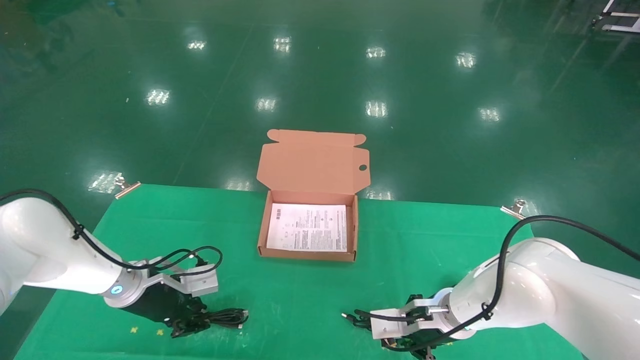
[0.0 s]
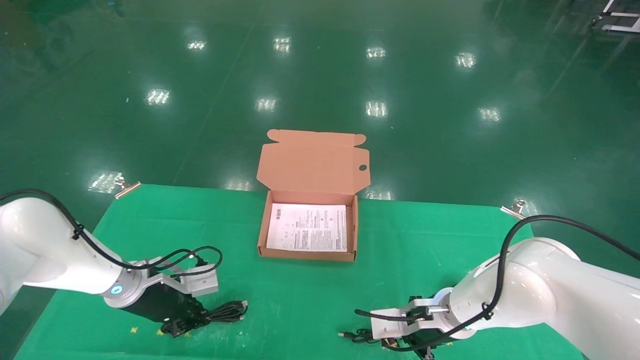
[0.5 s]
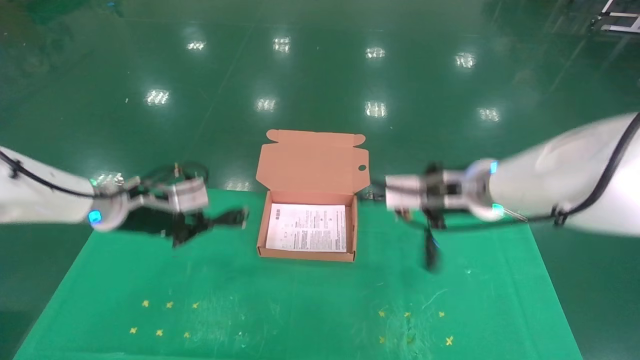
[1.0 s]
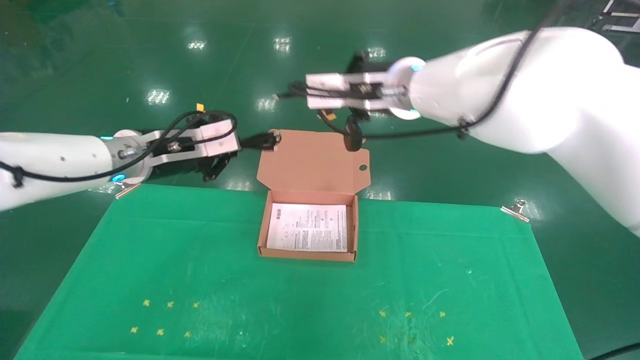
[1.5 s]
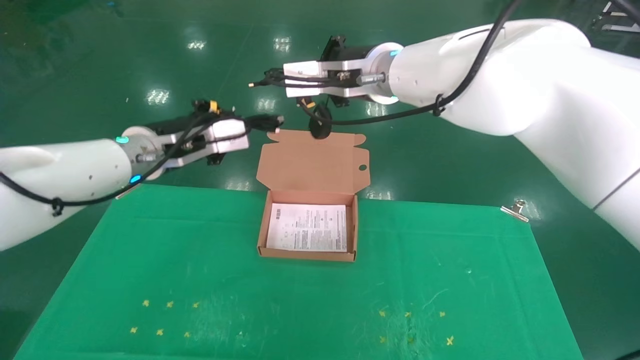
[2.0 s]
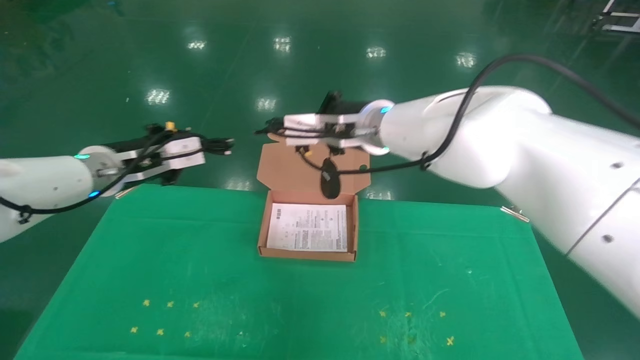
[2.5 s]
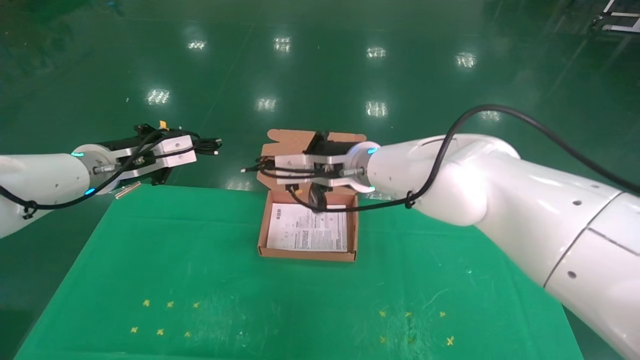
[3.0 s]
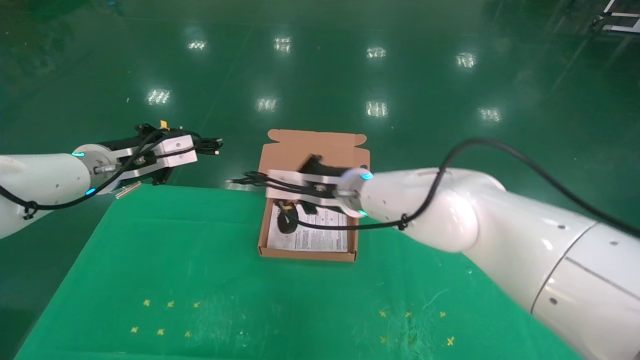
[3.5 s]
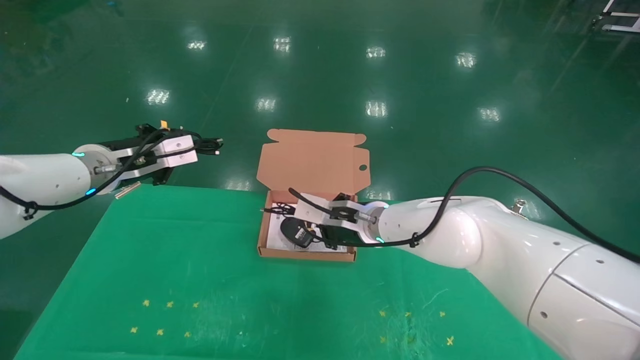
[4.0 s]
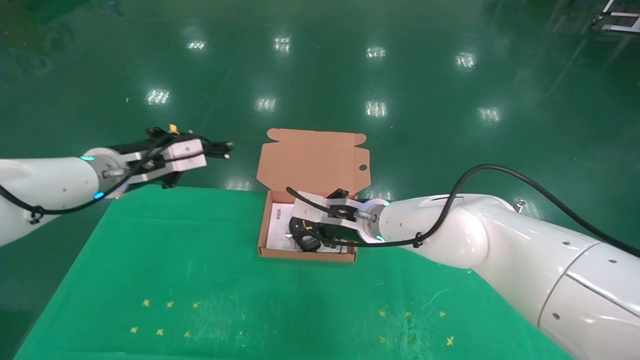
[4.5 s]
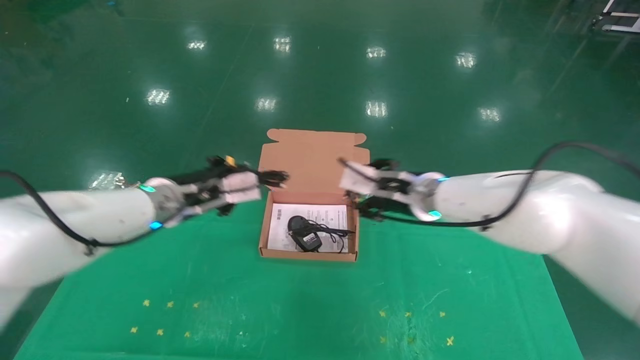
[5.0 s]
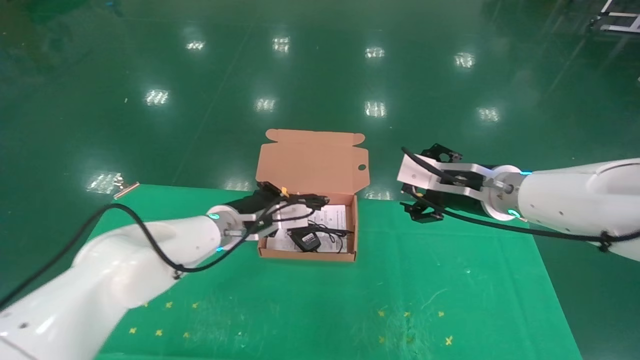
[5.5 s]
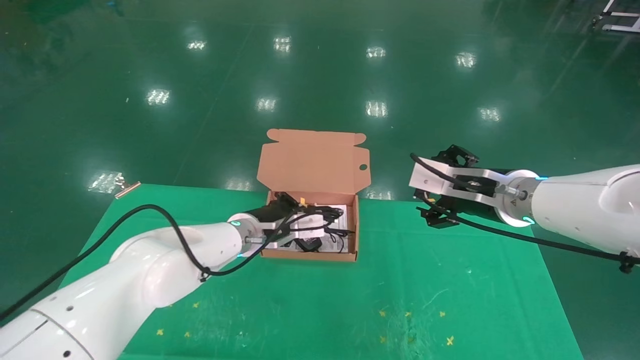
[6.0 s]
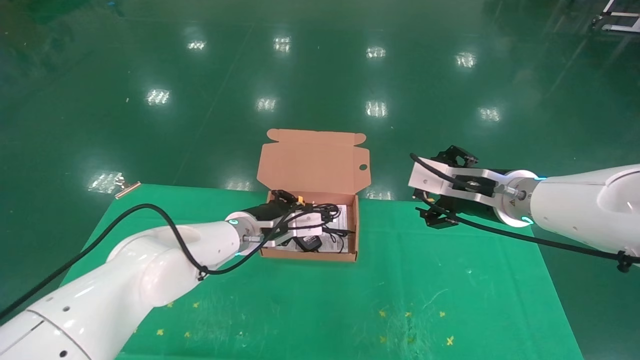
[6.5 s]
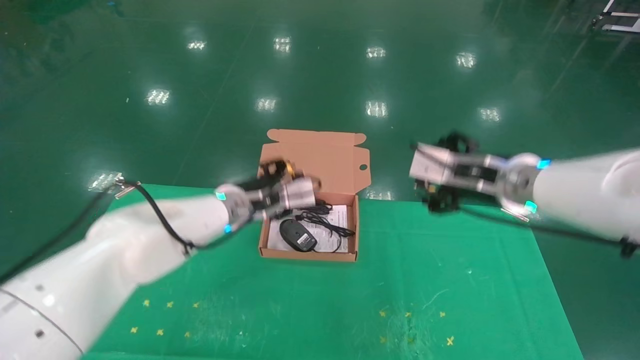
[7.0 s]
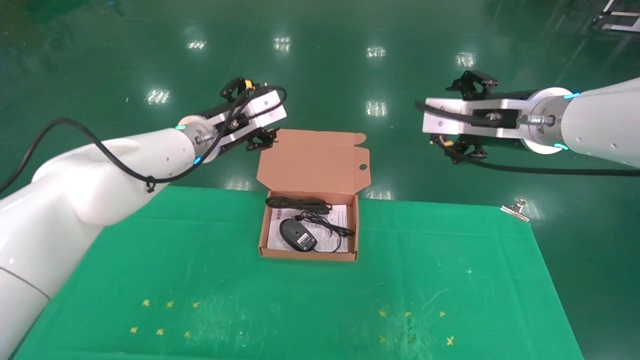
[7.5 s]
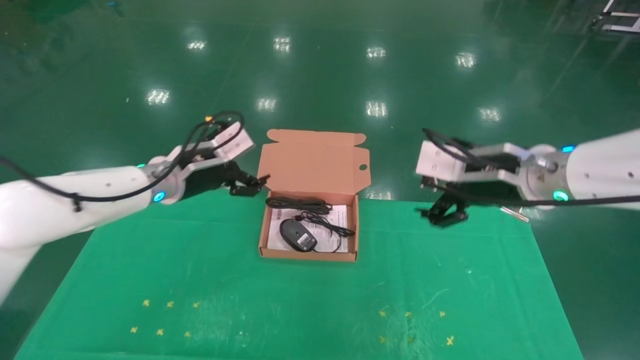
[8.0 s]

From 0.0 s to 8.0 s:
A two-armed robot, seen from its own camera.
Task of the whole recording: grasp data cable left put into box grasp mouse right put into box.
Step, from 1.5 s to 7.5 s: Place the mouse and power cord into the box.
From 0.0 s to 2.0 s: The left gripper shifts about 20 cm upward, and closes up. Meanwhile the right gripper shifts about 35 cm upward, and closes.
From 2.0 s to 4.0 s: The left gripper heads to the left, covering about 10 cm. Meanwhile the right gripper moves downward, some 20 cm.
From 4.0 s to 6.0 s: The right gripper moves to the right, backward and upward, some 20 cm, and opens its fingers; the left gripper travels to the right and downward by about 25 cm.
From 6.0 s to 8.0 s: The left gripper heads to the left and upward, covering about 15 cm, and opens; the right gripper goes upward and returns, approximately 10 cm each way.

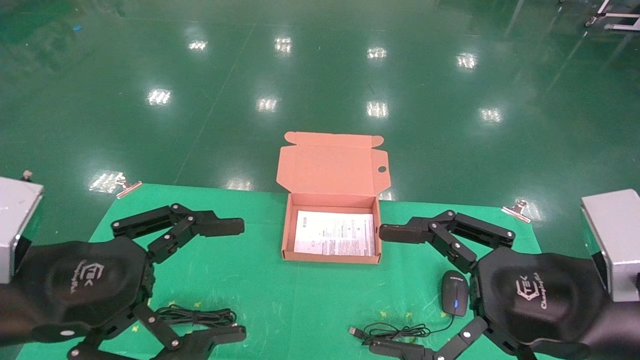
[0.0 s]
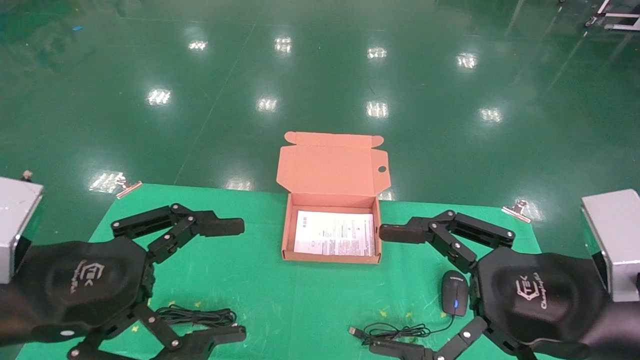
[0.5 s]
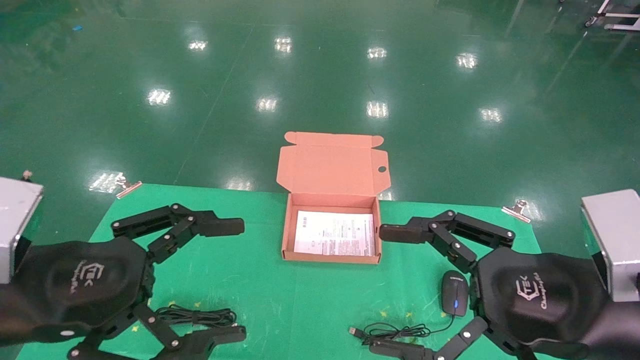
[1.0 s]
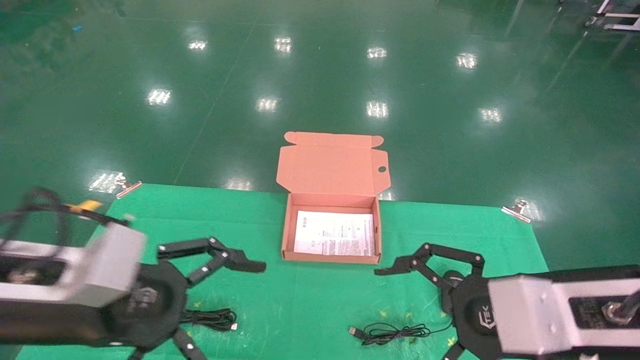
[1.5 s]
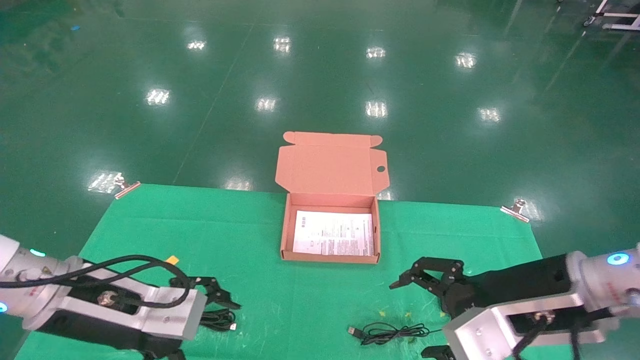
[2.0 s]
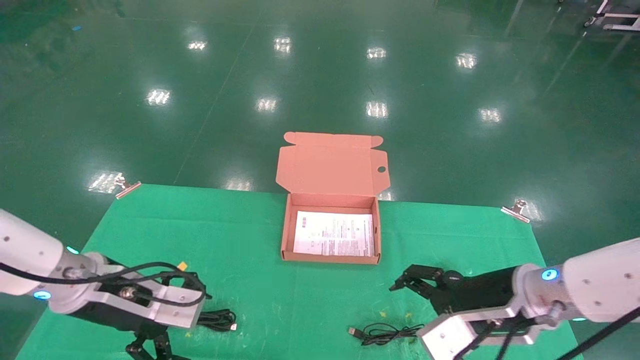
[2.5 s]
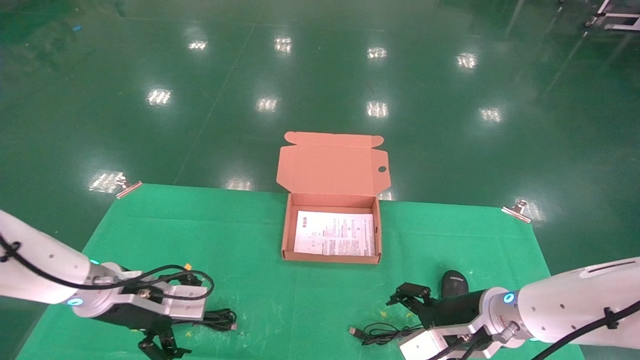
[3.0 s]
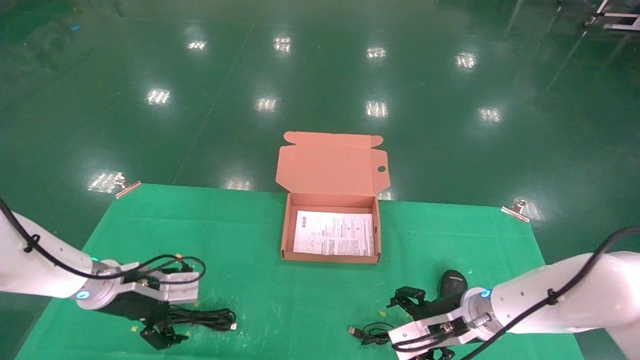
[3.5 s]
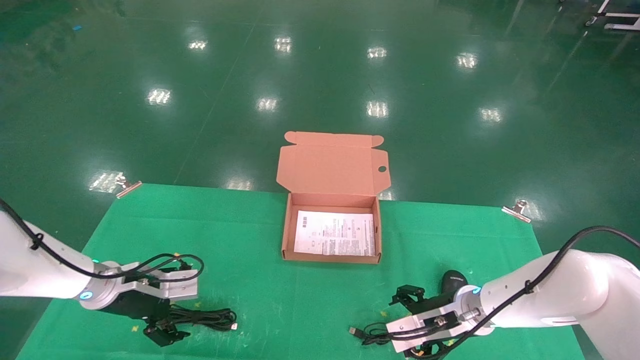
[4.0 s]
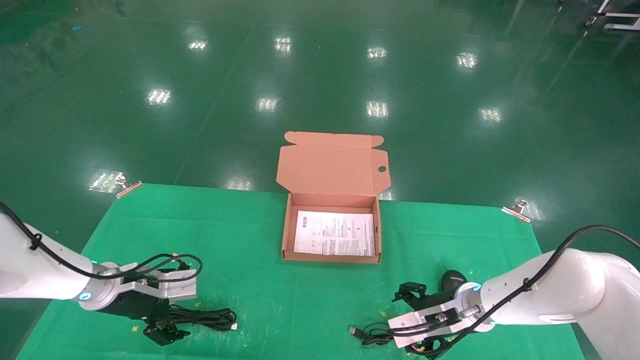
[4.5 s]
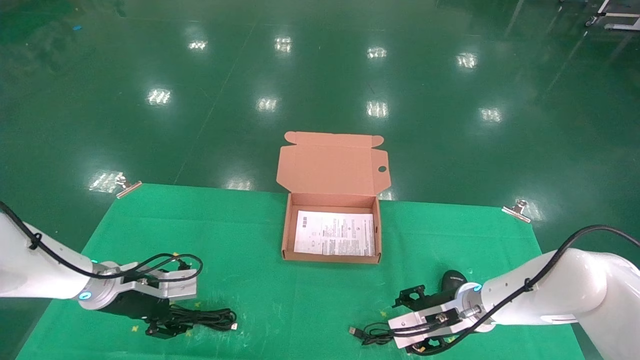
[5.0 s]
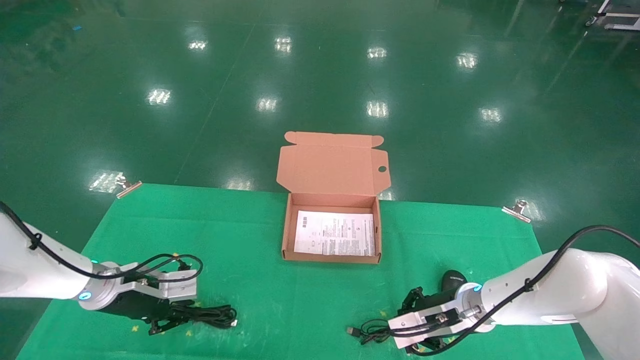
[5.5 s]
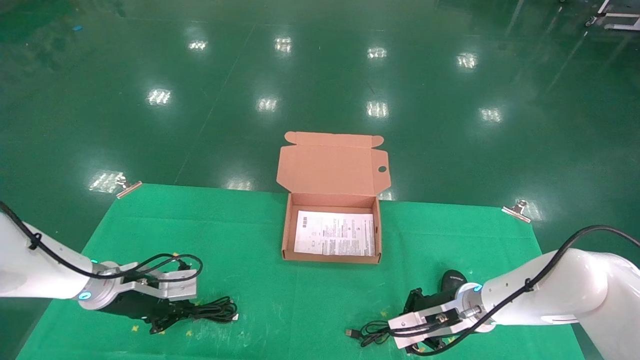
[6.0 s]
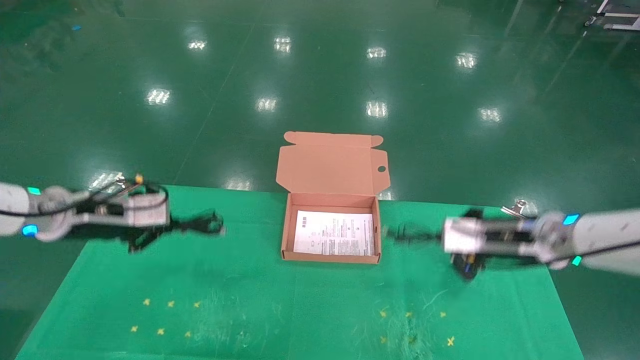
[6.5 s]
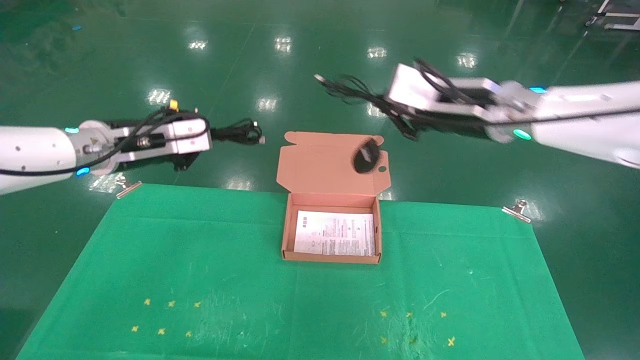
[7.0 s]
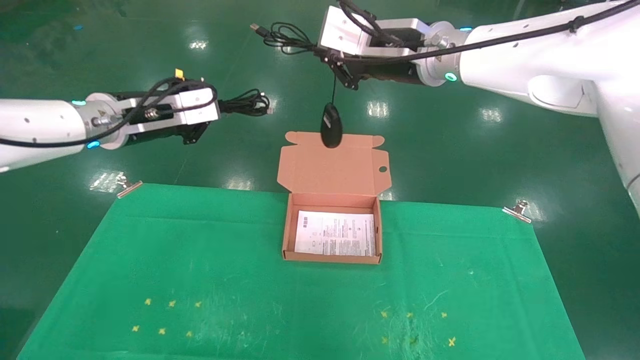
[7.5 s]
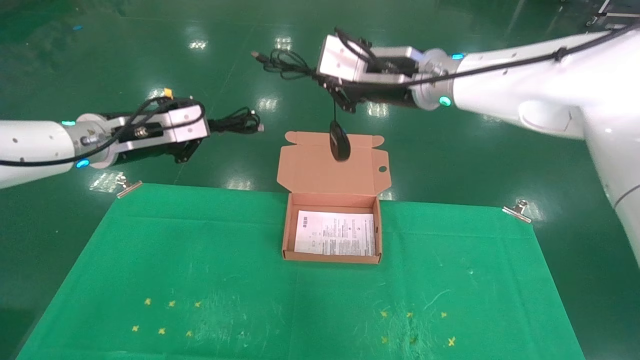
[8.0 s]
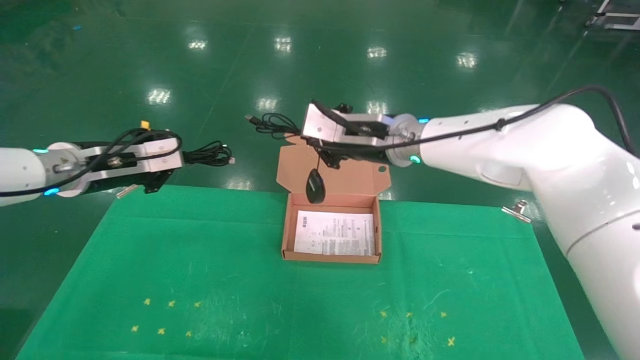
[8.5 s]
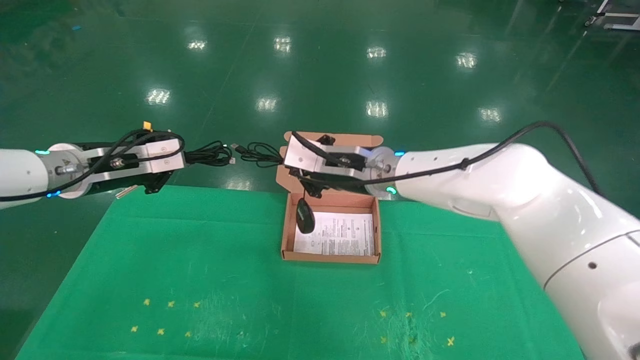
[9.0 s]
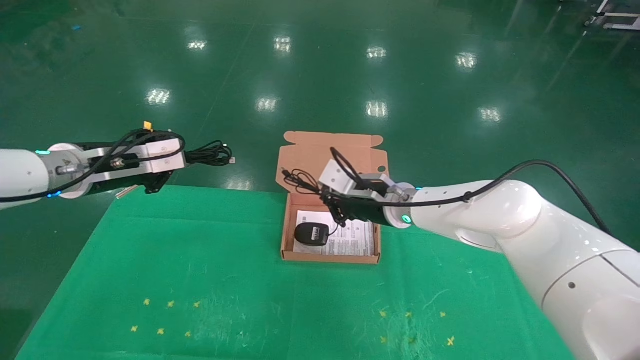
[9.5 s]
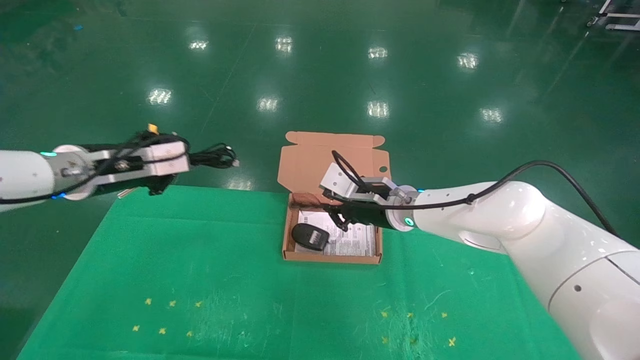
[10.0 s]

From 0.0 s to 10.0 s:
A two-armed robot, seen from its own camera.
Task of the whole recording: grasp data cable left put into box grasp mouse right put into box.
Step, from 1.5 s to 5.5 s: Grab and pick up both the mouse and power cord from the accessory packaging area at the same time.
From 0.0 s to 2.0 s: Both grippers move forward, approximately 10 cm.
From 2.0 s to 4.0 s: The left gripper shifts about 20 cm forward, downward and to the left; the right gripper shifts some 20 cm forward and downward.
From 4.0 s to 6.0 s: The left gripper closes up; the right gripper closes.
From 6.0 s to 8.0 s: The left gripper goes roughly 20 cm upward; the right gripper moves upward, some 30 cm.
From 8.0 s to 10.0 s: The right gripper heads downward, covering some 20 cm.

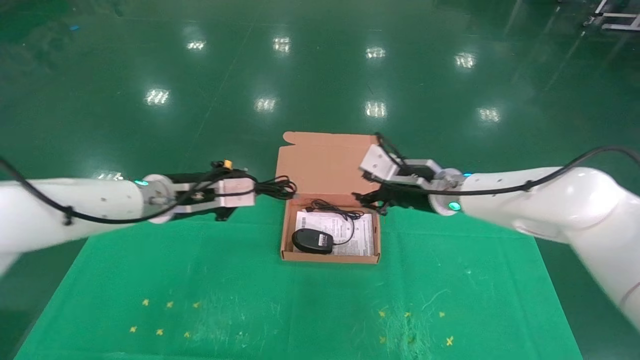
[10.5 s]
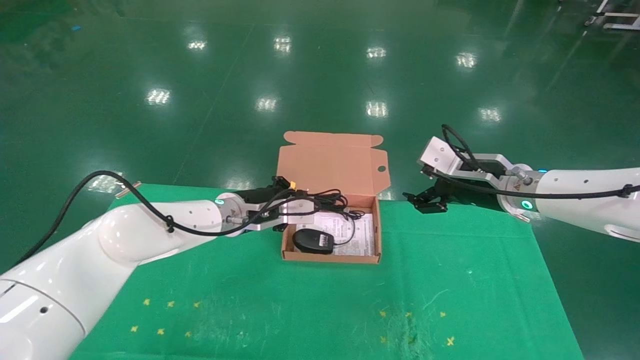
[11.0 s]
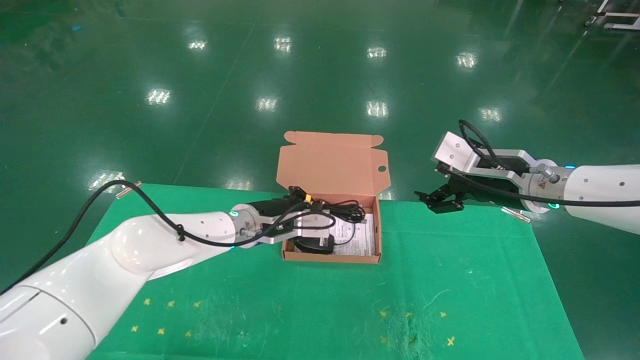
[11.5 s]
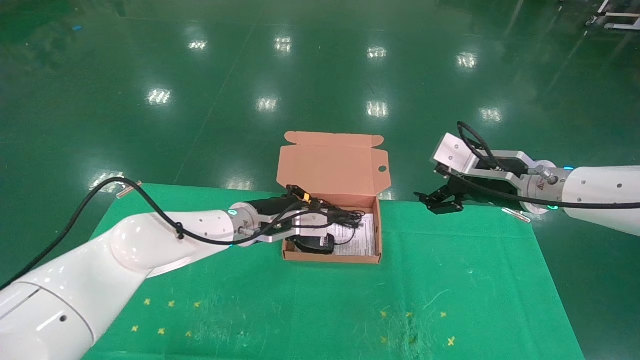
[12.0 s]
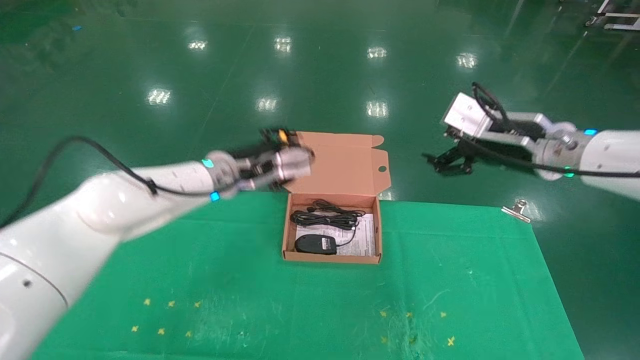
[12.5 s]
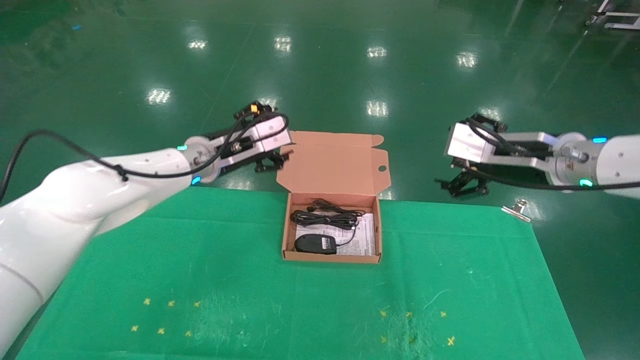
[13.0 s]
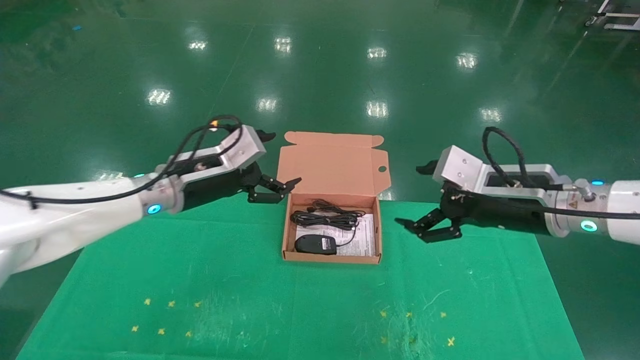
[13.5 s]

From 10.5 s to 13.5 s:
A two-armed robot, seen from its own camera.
Task of the whole recording: grasp data cable left put into box grasp mouse right put into box.
From 10.5 s to 12.0 s: The right gripper travels to the right and backward by about 10 cm, and opens its fingers, while the left gripper is displaced to the right and downward by roughly 10 cm.
From 12.0 s to 13.5 s: The left gripper travels to the left, upward and backward by some 15 cm, and opens its fingers. The right gripper travels backward by roughly 5 cm.
